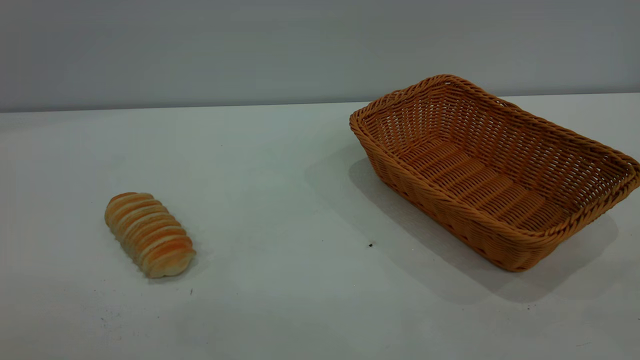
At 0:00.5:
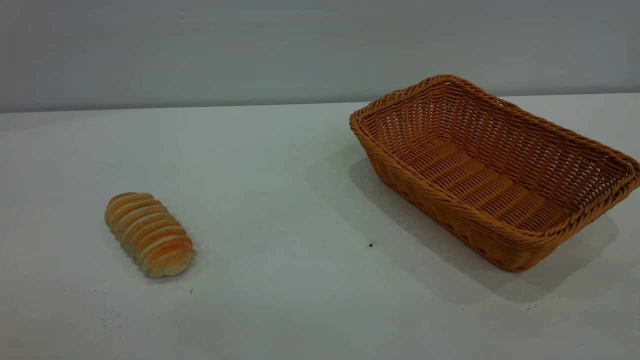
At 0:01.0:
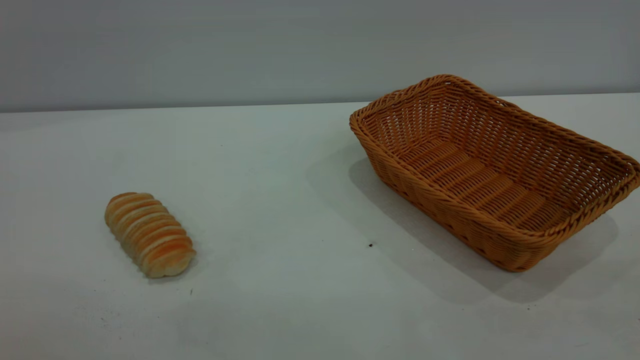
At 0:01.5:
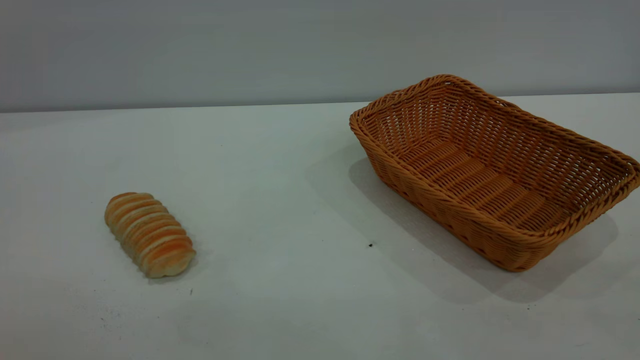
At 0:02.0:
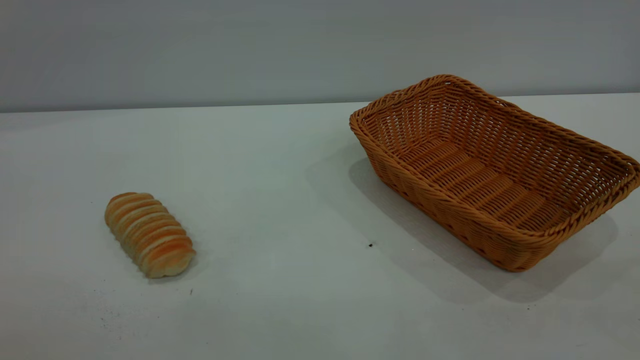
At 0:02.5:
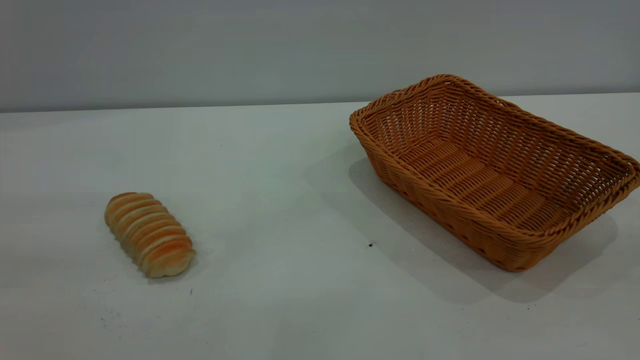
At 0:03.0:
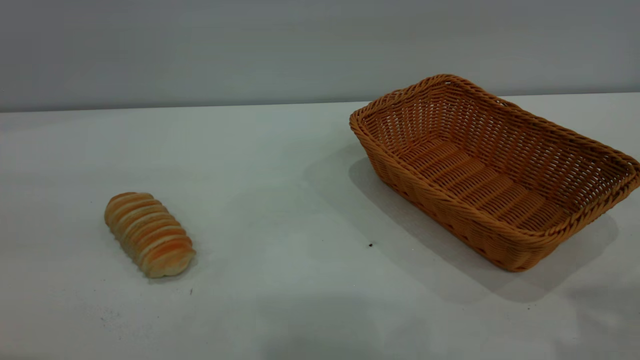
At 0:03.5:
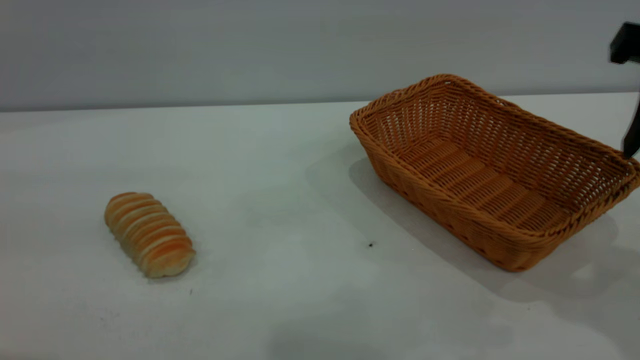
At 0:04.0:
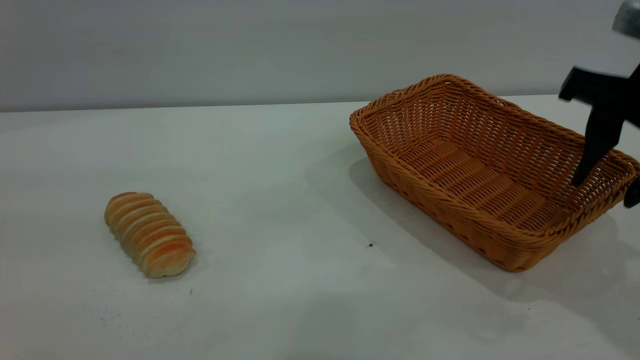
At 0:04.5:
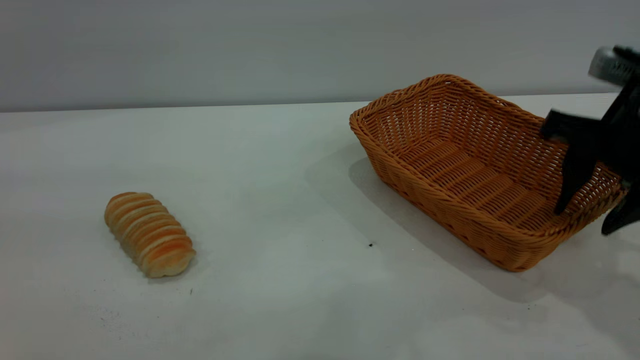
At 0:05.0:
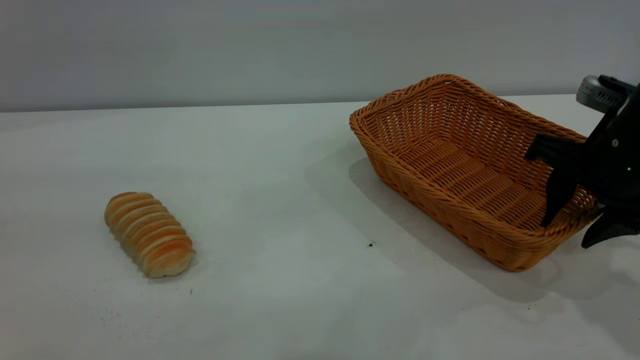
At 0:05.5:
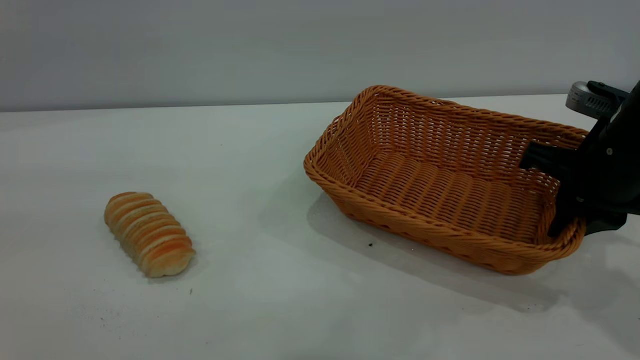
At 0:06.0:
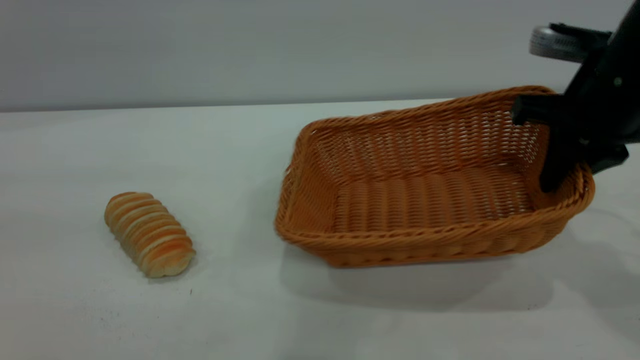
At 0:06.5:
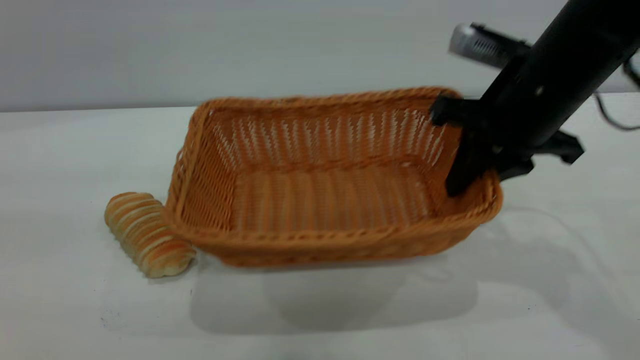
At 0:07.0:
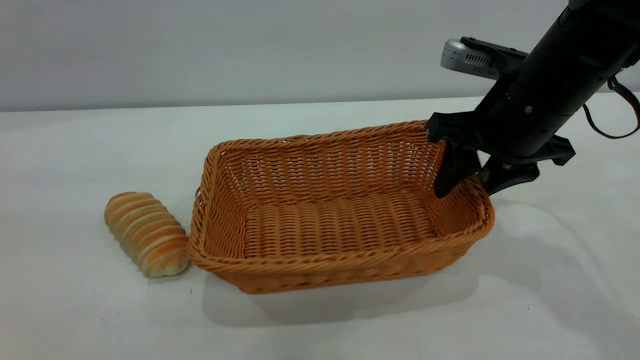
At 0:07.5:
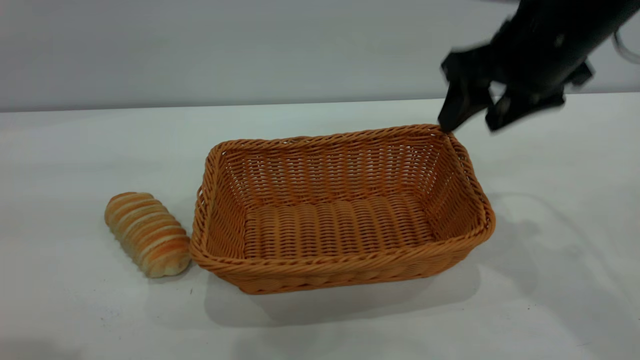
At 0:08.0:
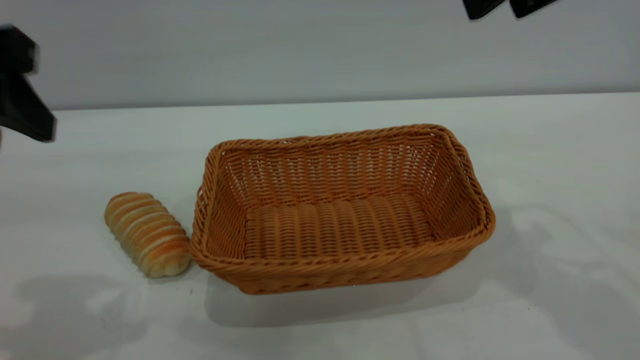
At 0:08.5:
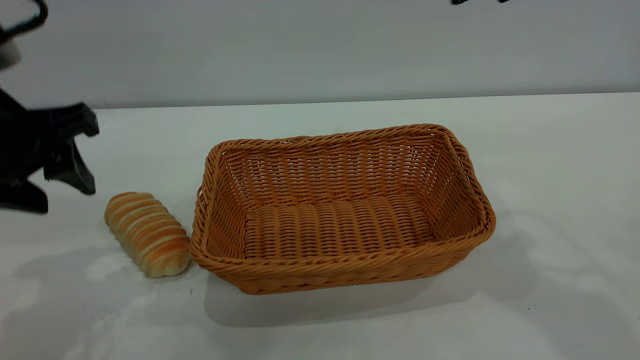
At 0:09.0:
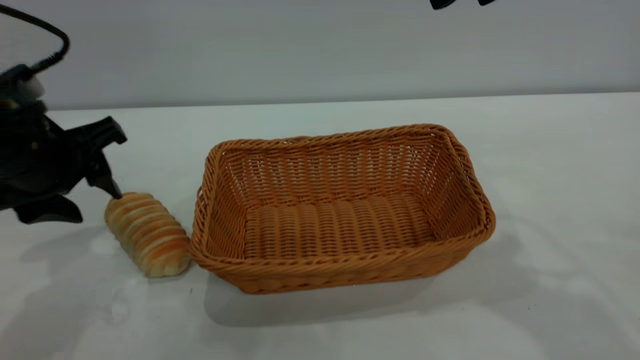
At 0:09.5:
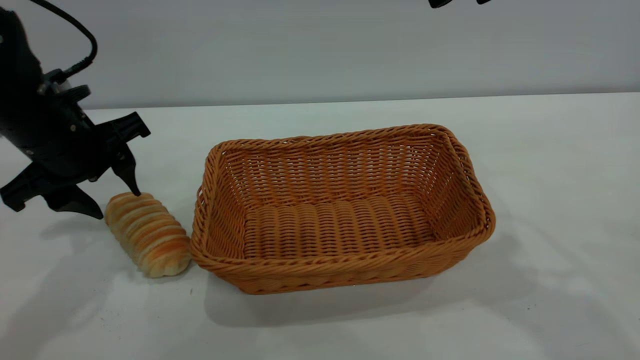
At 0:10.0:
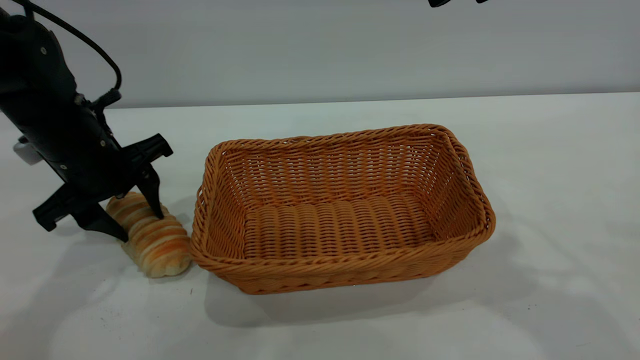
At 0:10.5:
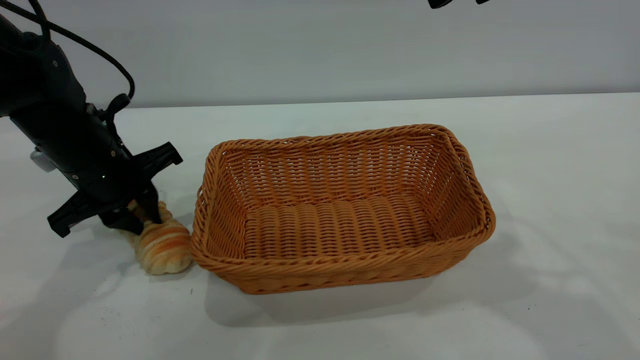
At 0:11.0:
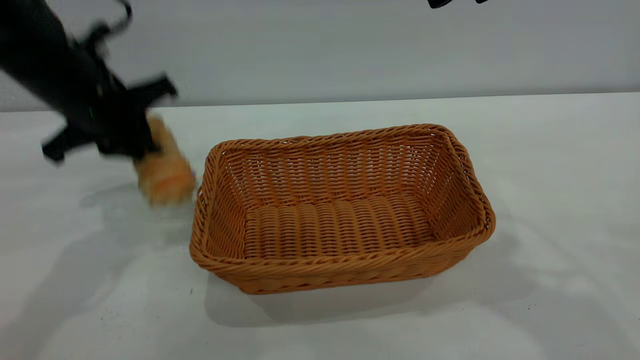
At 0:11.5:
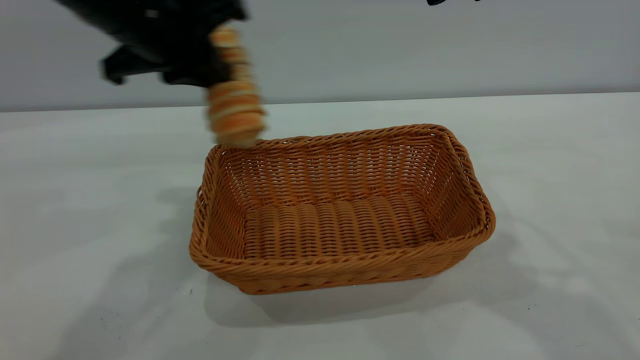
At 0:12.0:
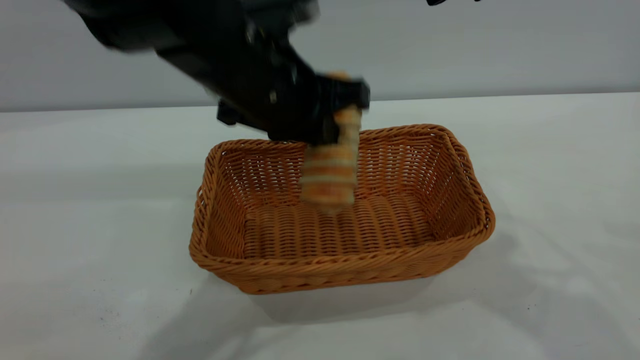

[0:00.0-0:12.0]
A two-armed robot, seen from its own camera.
Task of the whole recording: One hand grasps the yellow basket and places it in the middle of the table, while the other hand picks up the long bread and puts it into the yellow basket.
Step, 0:00.0 to 0:07.5: Move the basket to the center of view.
0:02.0 to 0:04.0: The right gripper is displaced forward by approximately 30 cm.
0:04.0 to 0:06.0: The right gripper is displaced forward by about 5 cm, travels downward and back again, about 10 cm each way, and closes its fingers.
0:06.0 to 0:08.0: The left gripper shifts about 15 cm forward and downward; the right gripper moves upward, some 15 cm, and opens up.
0:08.0 to 0:10.0: The left gripper goes approximately 20 cm downward and forward.
0:10.0 to 0:12.0: The left gripper goes roughly 20 cm to the right and upward, and closes.

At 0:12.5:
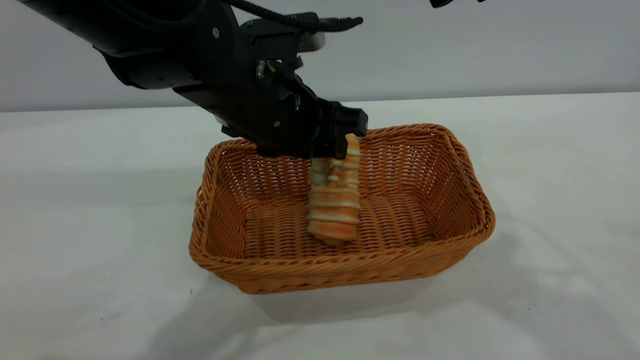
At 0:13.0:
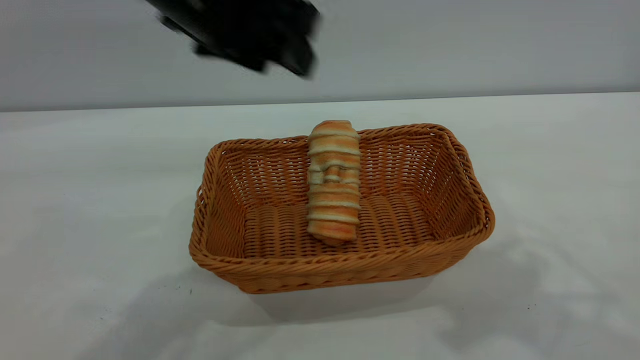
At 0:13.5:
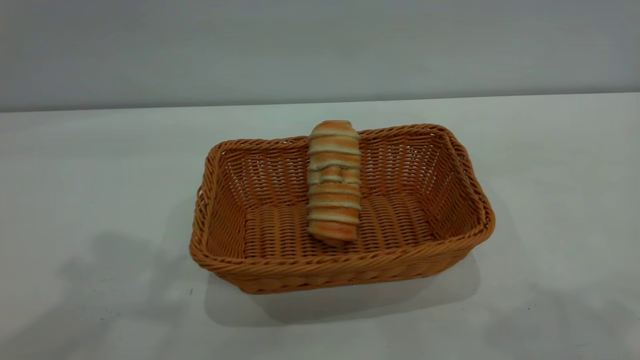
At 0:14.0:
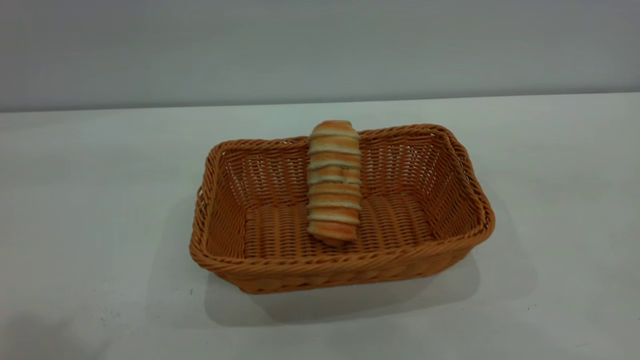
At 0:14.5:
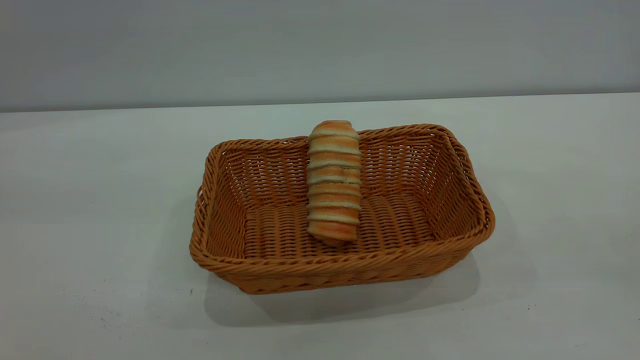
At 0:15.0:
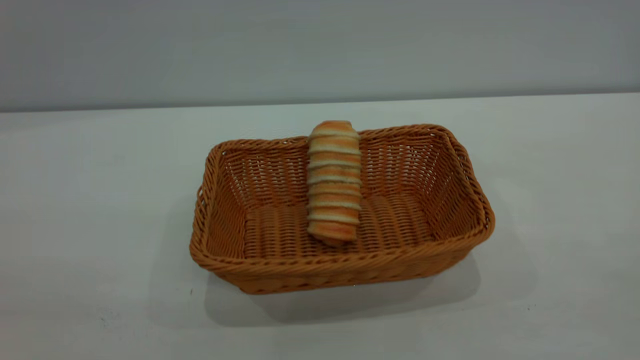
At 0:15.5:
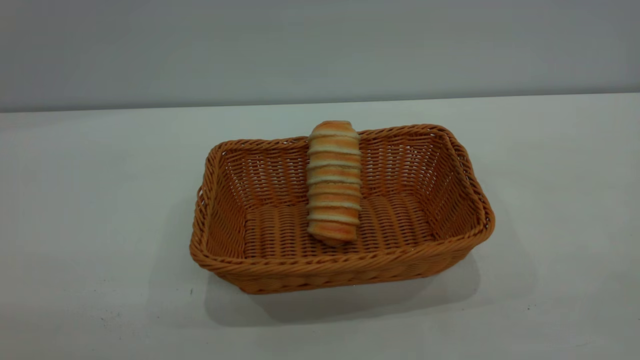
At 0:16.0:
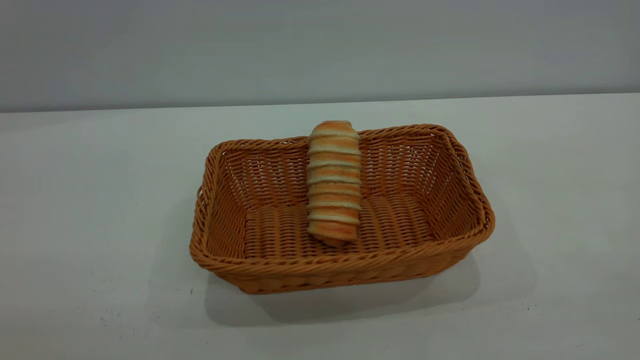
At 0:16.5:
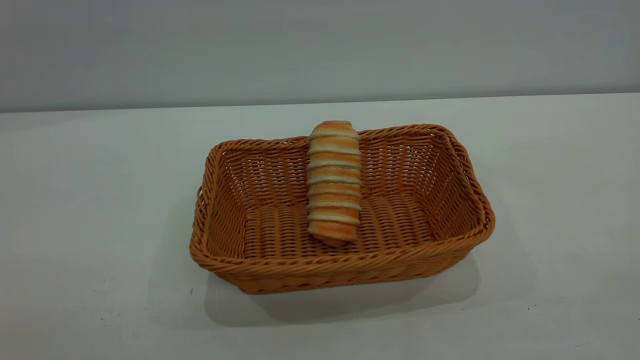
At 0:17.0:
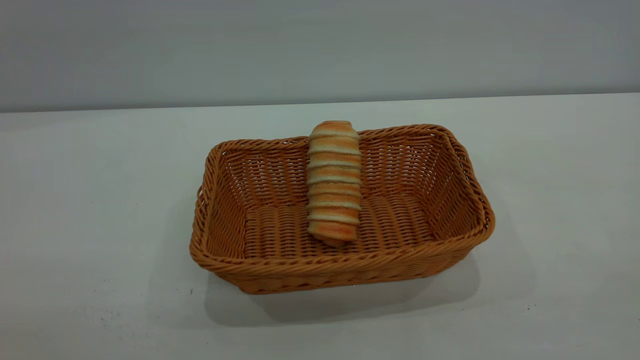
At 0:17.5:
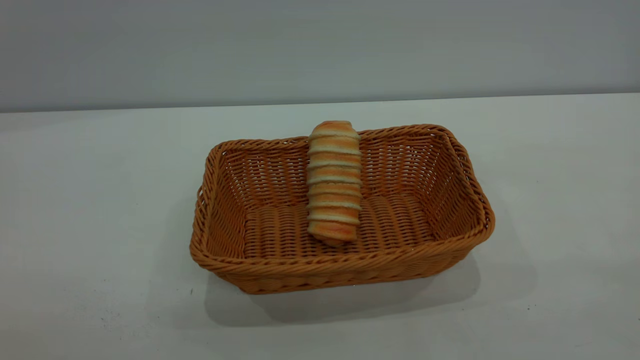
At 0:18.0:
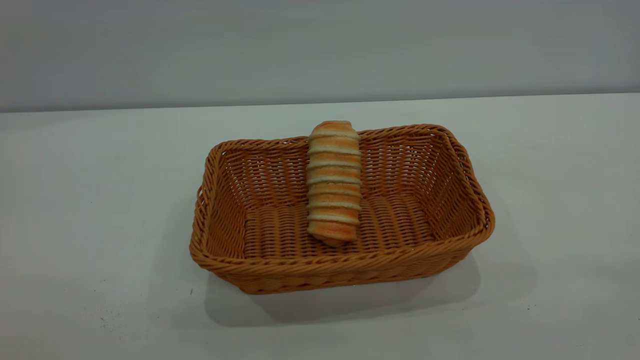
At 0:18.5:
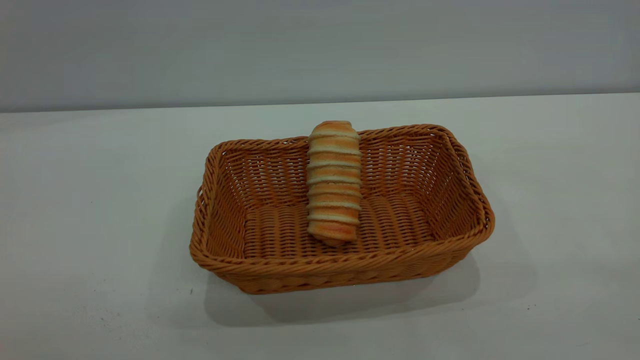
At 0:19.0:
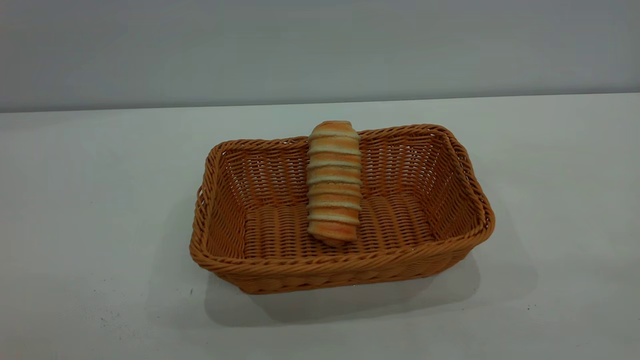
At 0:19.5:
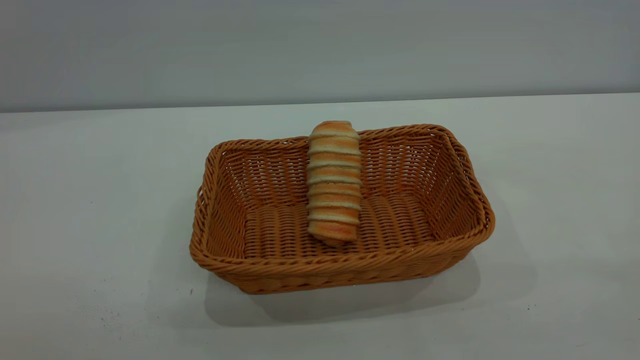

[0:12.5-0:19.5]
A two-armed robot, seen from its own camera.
Task of the whole recording: One hand grasps the yellow basket and places it in the middle of the table, while the other hand picks up the long bread and puts it into the yellow basket.
0:12.5 to 0:14.5: The right gripper heads backward and to the right, covering roughly 30 cm, while the left gripper goes some 40 cm upward, backward and to the left.
